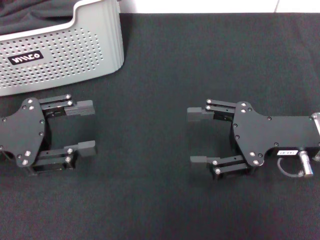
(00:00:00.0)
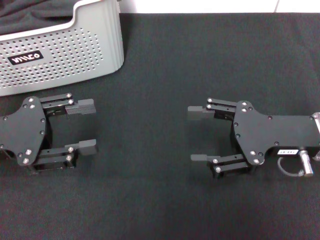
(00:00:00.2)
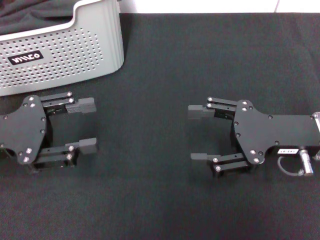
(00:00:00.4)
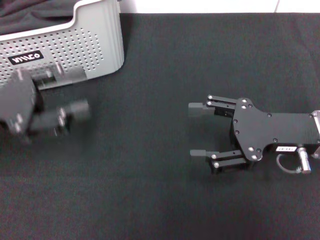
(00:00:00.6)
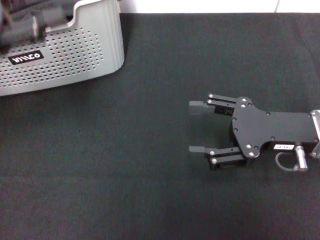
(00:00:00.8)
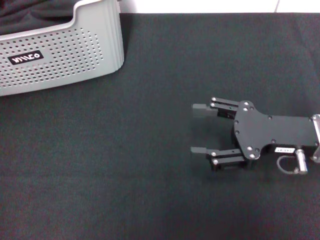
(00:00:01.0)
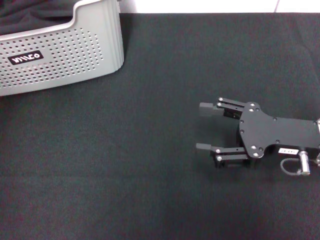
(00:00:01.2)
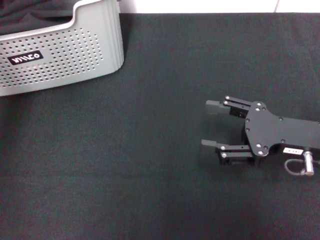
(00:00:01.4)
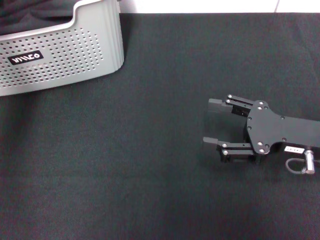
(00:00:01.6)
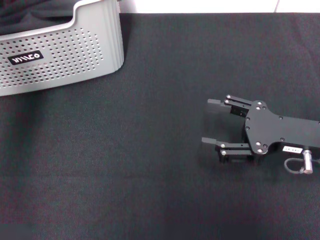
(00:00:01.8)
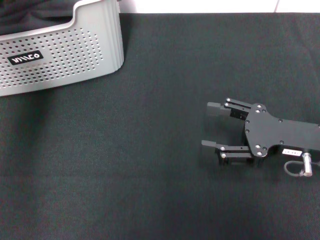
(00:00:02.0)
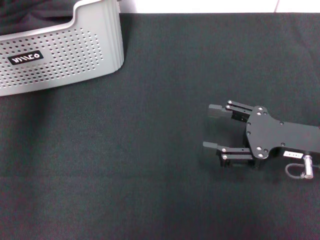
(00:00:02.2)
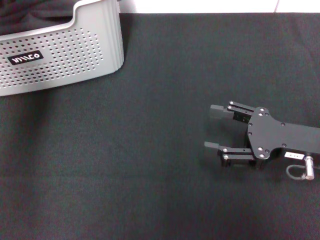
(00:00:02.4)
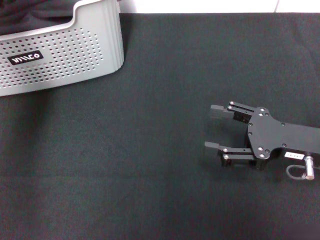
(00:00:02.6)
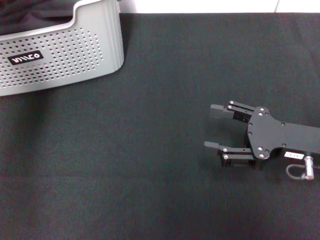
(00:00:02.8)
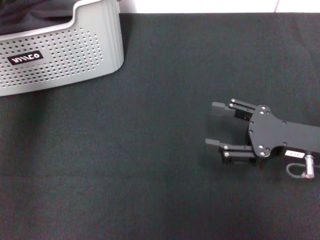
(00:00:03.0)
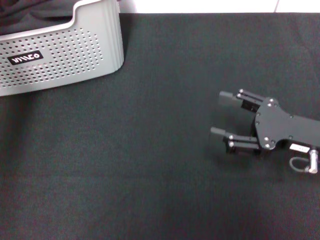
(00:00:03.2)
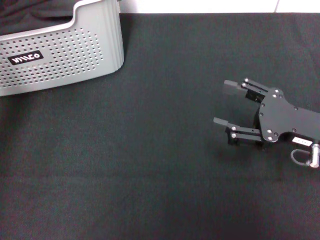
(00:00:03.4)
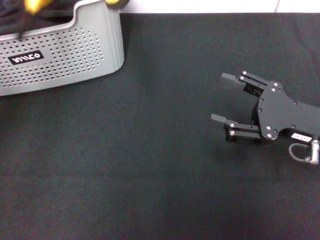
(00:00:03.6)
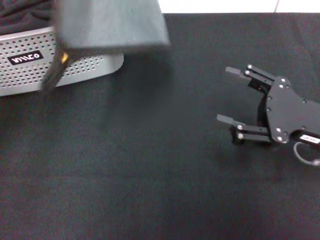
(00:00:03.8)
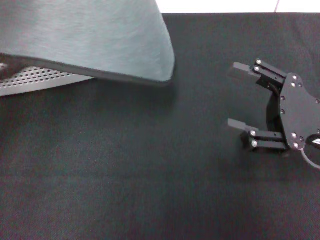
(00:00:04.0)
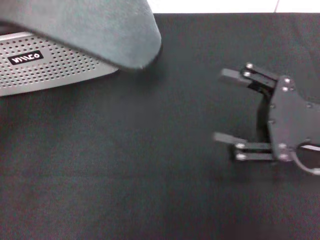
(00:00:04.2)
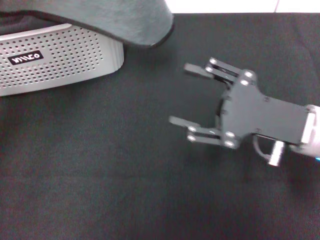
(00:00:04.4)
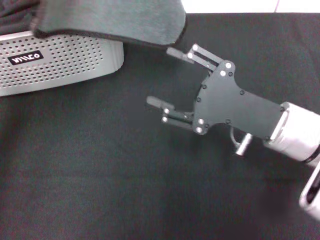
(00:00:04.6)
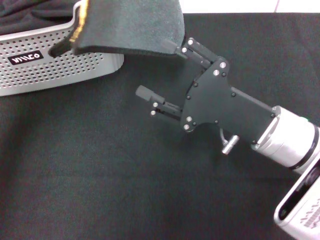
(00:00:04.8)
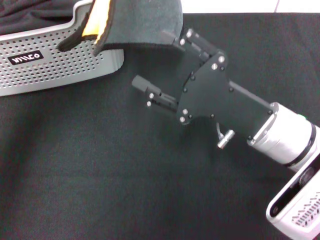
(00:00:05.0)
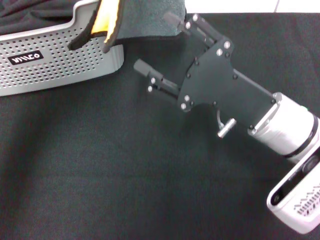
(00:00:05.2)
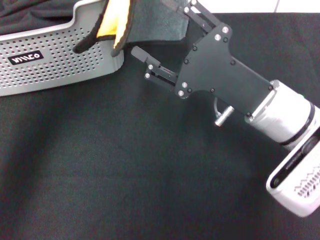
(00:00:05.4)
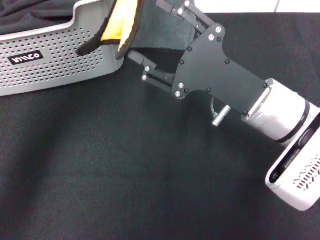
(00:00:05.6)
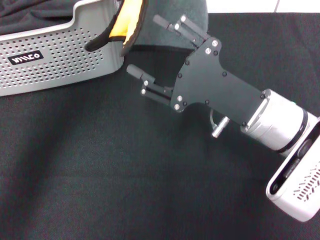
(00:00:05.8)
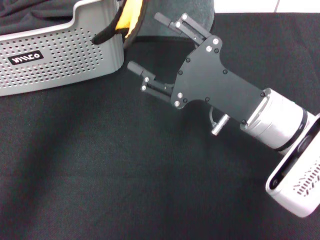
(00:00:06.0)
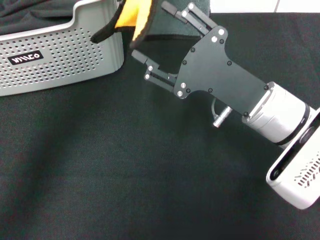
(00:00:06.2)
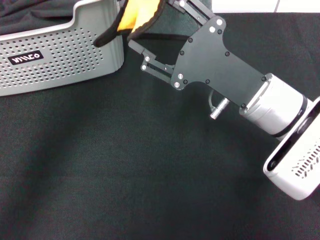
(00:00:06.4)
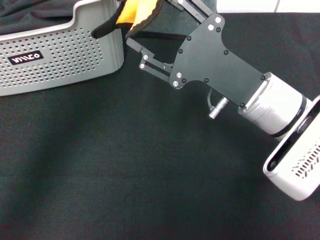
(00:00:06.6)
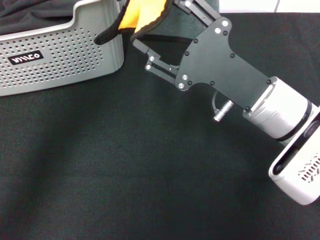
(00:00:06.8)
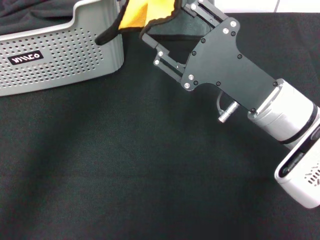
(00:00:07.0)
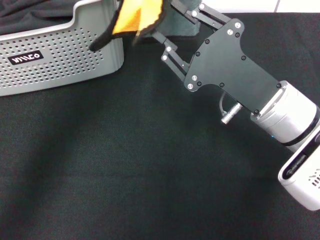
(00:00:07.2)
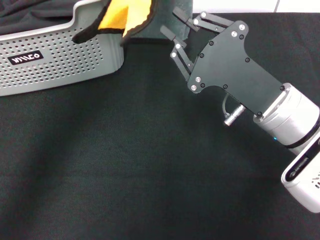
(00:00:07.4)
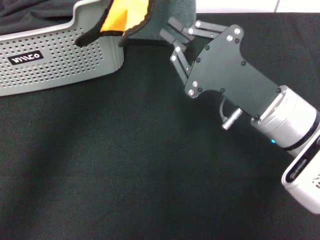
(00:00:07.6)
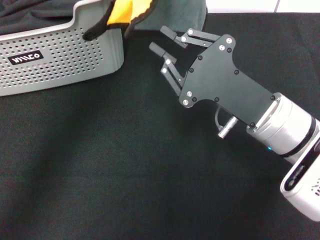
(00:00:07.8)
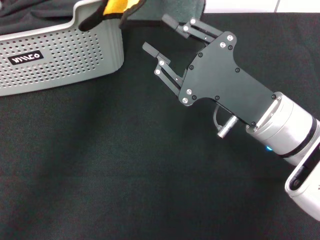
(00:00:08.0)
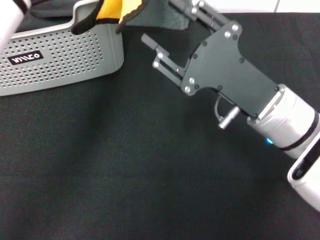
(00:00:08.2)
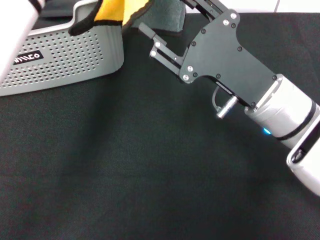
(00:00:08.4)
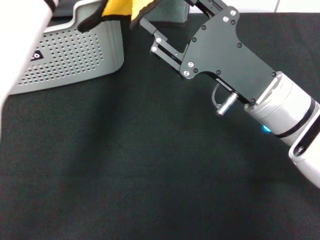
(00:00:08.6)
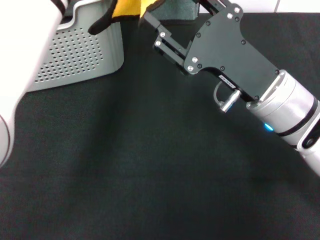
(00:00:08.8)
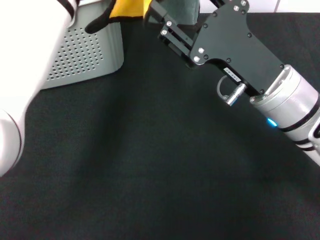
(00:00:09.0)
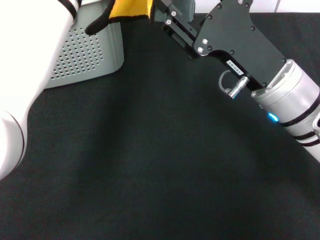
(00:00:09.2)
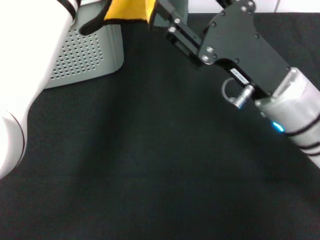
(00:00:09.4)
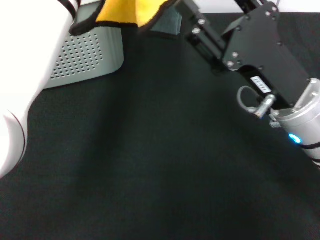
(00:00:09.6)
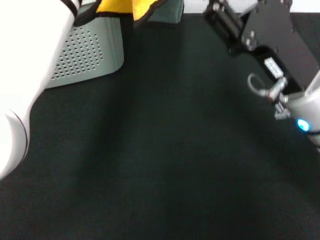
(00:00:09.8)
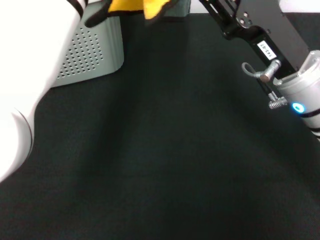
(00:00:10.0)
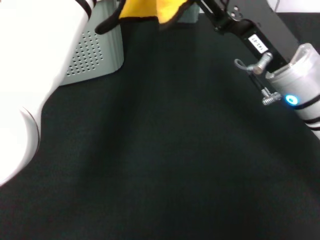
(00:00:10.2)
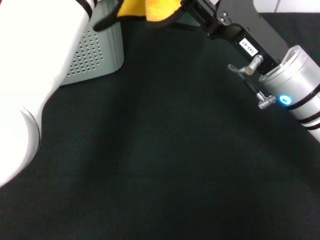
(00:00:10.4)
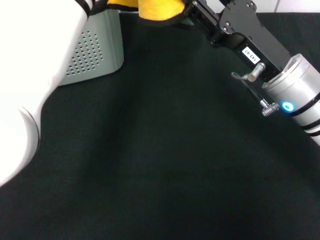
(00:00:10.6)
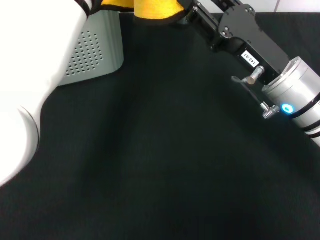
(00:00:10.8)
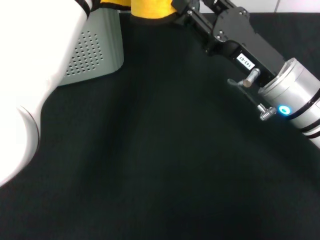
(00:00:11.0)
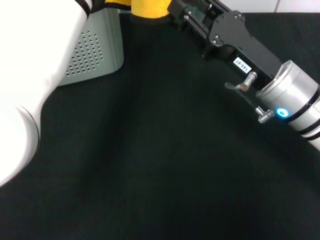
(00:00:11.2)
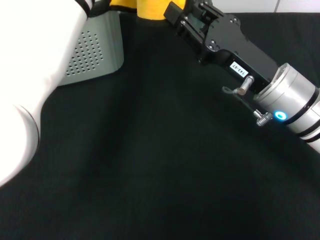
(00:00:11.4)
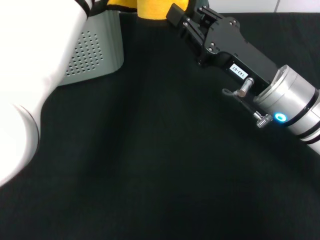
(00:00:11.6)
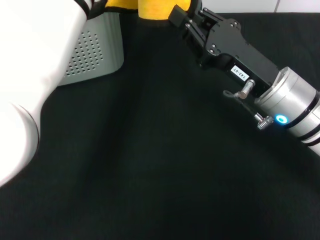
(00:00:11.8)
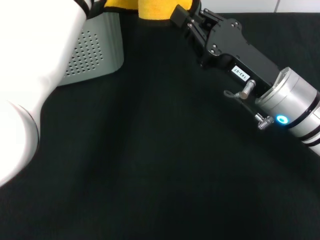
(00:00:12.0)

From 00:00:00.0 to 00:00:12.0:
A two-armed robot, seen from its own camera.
Task of the whole recording: pick up the towel from the storage box and lay it flat on the black tablecloth.
Step, from 00:00:00.0 to 00:00:02.8: Pick up a towel with the left gripper.
From 00:00:00.0 to 00:00:01.6: The left gripper moves upward and forward, about 20 cm.
From 00:00:01.6 to 00:00:03.0: The left gripper closes its fingers.
From 00:00:03.0 to 00:00:04.4: The left gripper travels backward and upward by approximately 15 cm; the right gripper moves approximately 5 cm.
From 00:00:04.4 to 00:00:06.0: The right gripper shifts about 5 cm to the left; the left gripper is displaced to the right by approximately 10 cm.
From 00:00:06.0 to 00:00:07.6: The right gripper closes its fingers.
From 00:00:07.6 to 00:00:09.0: The right gripper opens its fingers, while the left gripper changes place by approximately 5 cm.
From 00:00:10.4 to 00:00:12.0: The right gripper closes its fingers.

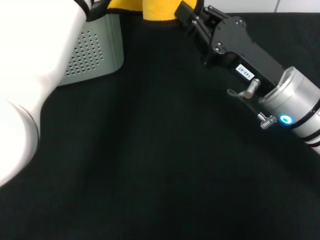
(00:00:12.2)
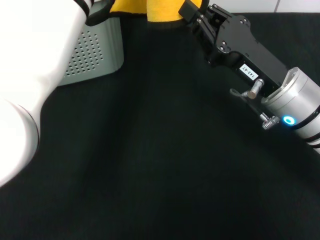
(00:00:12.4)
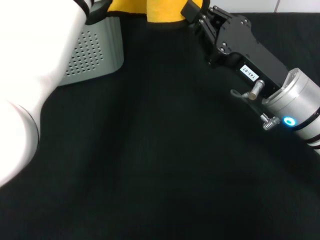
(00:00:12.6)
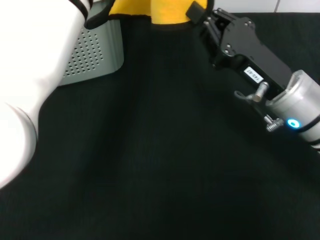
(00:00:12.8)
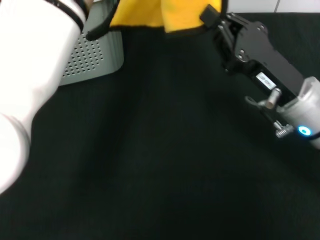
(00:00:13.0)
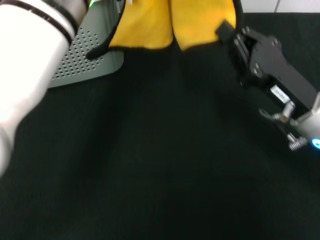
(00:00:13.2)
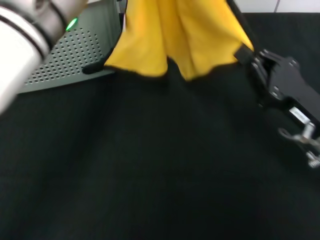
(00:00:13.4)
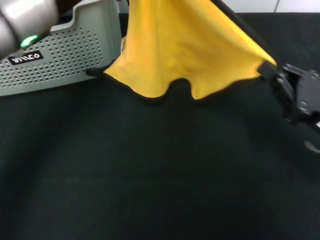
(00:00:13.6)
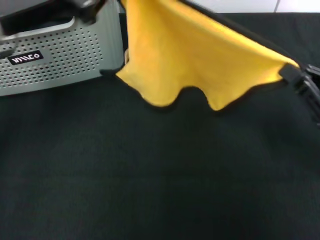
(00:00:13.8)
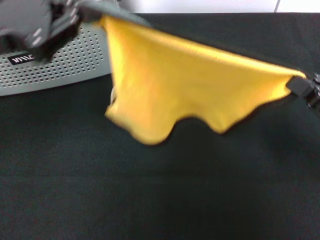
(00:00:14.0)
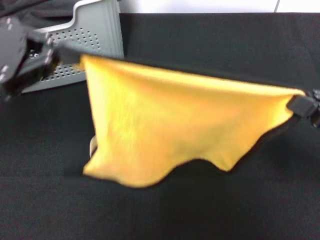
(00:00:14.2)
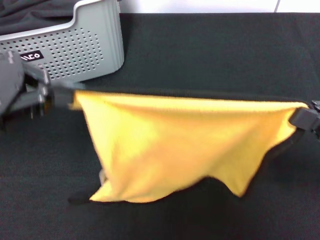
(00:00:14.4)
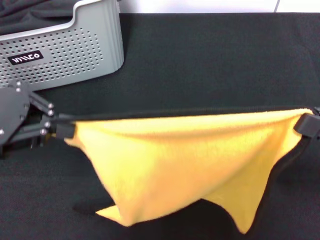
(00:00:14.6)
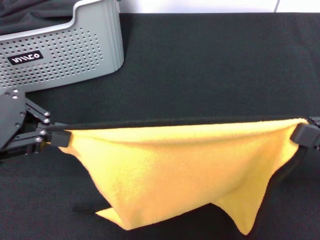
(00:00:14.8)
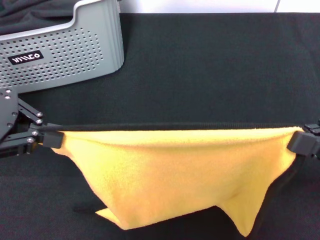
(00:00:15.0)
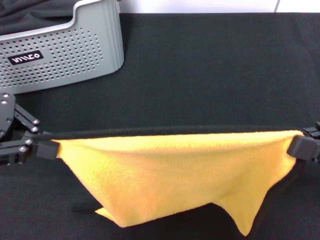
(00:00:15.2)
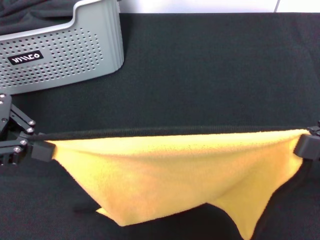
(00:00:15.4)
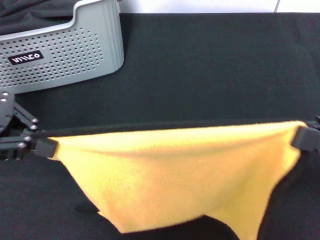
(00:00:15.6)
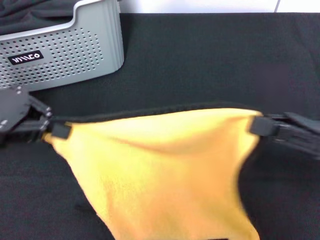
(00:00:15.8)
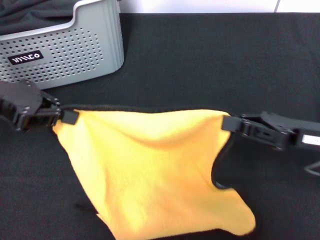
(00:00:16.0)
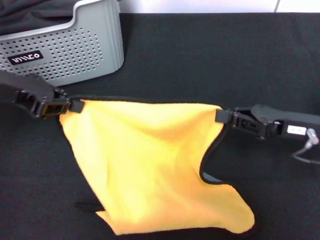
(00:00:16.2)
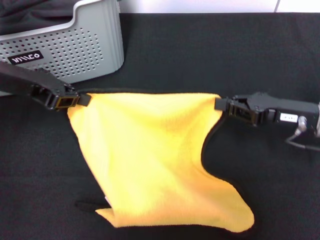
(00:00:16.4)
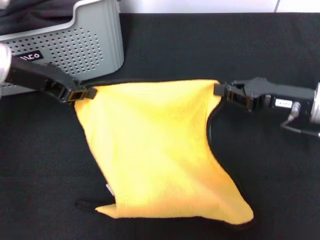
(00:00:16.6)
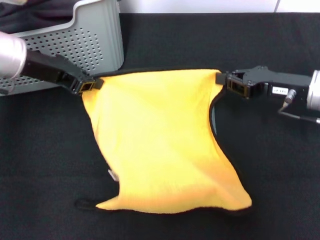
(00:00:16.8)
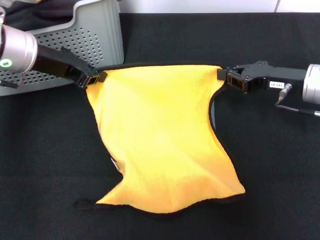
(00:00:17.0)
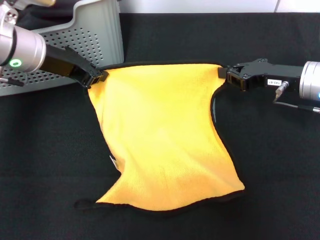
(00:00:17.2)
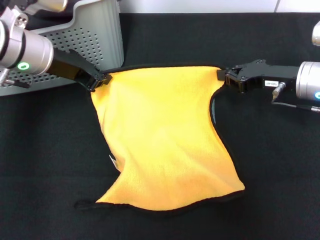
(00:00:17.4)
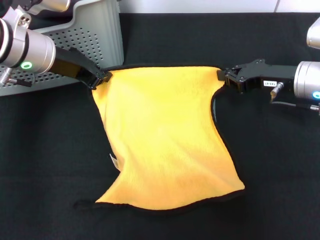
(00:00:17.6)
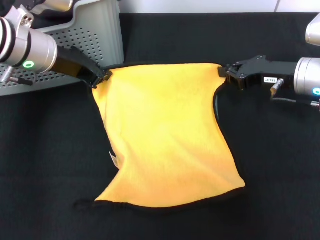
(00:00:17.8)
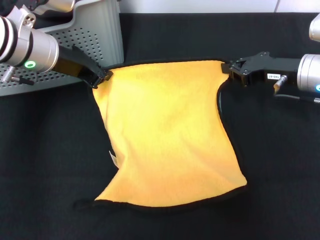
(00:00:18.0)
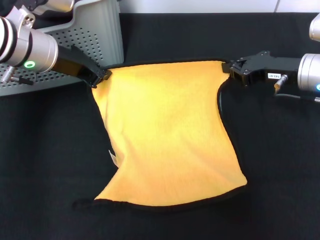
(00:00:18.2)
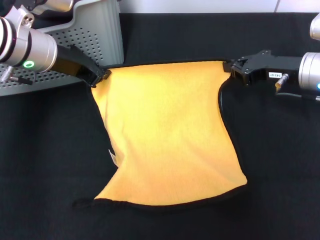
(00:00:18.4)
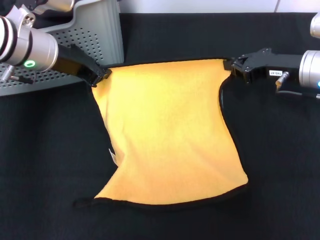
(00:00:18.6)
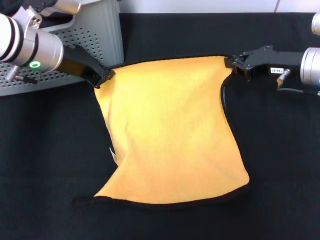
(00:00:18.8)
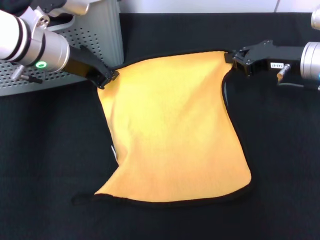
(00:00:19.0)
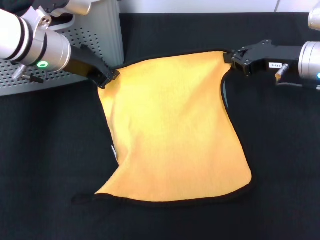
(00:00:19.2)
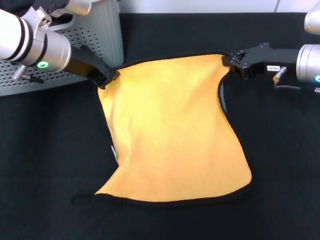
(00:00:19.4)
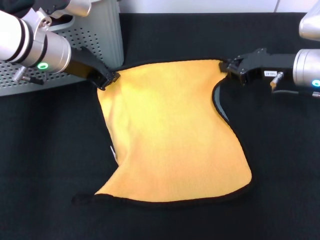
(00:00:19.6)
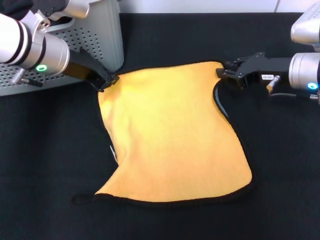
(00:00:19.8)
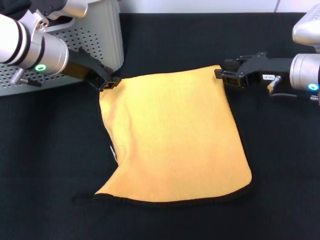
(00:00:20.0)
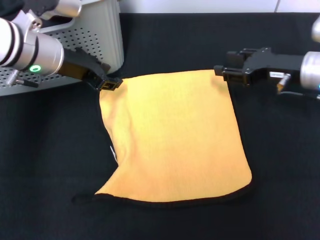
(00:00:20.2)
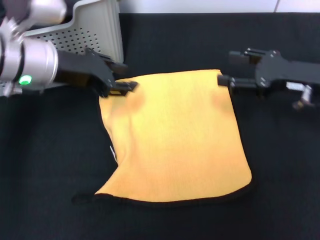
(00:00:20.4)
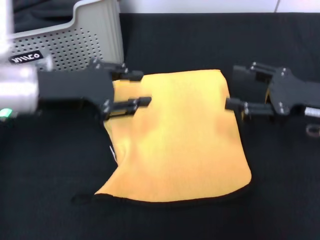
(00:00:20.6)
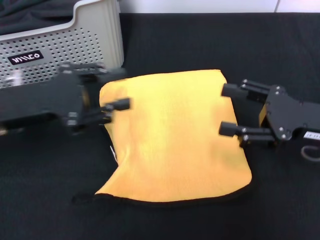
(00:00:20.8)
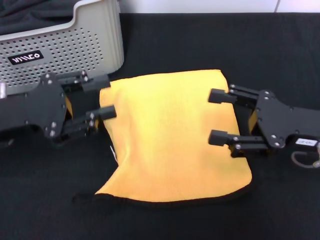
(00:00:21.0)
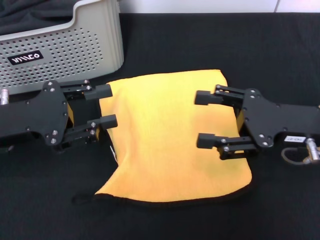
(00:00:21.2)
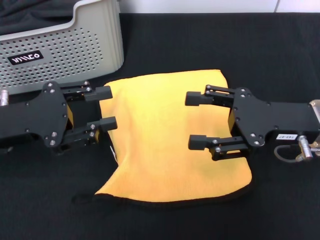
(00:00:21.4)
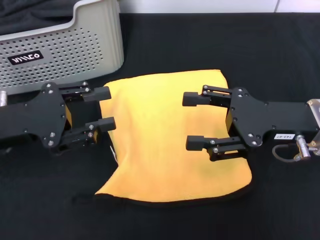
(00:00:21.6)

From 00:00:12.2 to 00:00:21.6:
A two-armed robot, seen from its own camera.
Task of the whole recording: pick up the towel from the storage box and lay it flat on the black tablecloth.
Step, from 00:00:13.0 to 00:00:20.0: Spread the towel flat with the right gripper.
From 00:00:12.2 to 00:00:13.8: The right gripper shifts approximately 15 cm to the right; the left gripper moves to the left, some 15 cm.
From 00:00:13.8 to 00:00:15.4: The left gripper travels to the left by about 10 cm.
From 00:00:15.4 to 00:00:17.0: The right gripper shifts approximately 15 cm forward; the left gripper shifts approximately 15 cm forward, to the right and downward.
From 00:00:18.4 to 00:00:20.0: The grippers stay close to where they were, moving slightly.
From 00:00:20.0 to 00:00:21.6: The right gripper heads backward, covering about 10 cm, and opens its fingers, while the left gripper moves backward and to the left, some 15 cm, and opens its fingers.
